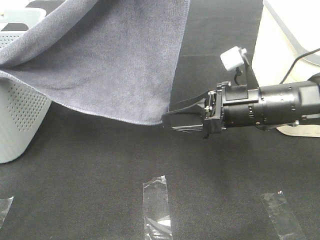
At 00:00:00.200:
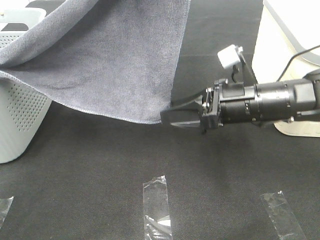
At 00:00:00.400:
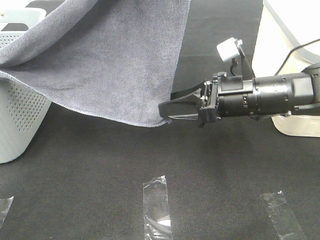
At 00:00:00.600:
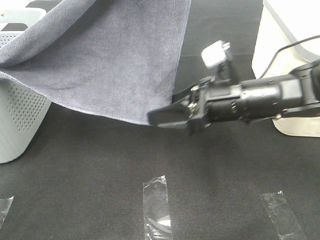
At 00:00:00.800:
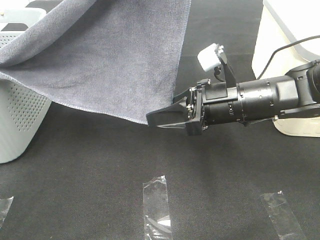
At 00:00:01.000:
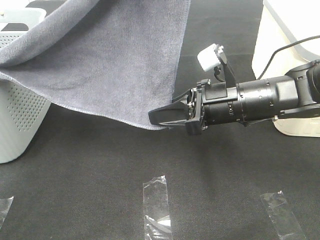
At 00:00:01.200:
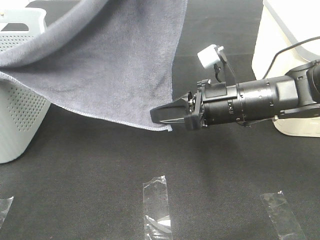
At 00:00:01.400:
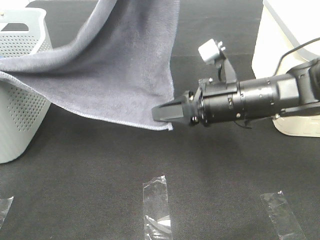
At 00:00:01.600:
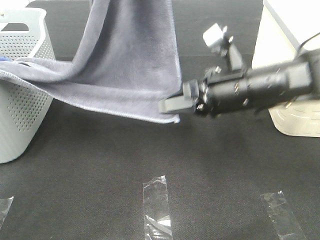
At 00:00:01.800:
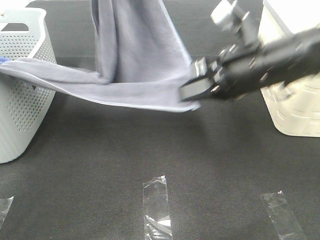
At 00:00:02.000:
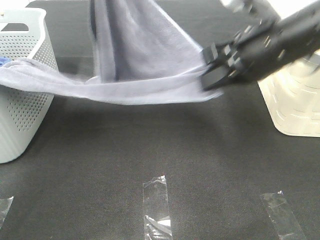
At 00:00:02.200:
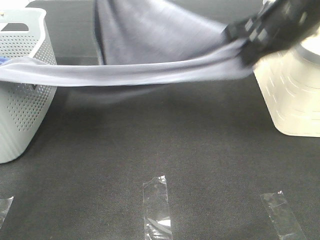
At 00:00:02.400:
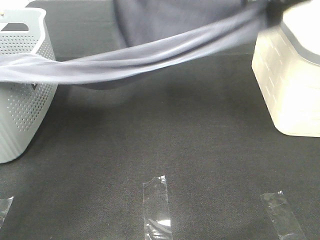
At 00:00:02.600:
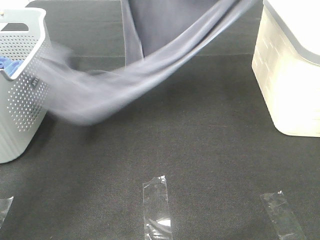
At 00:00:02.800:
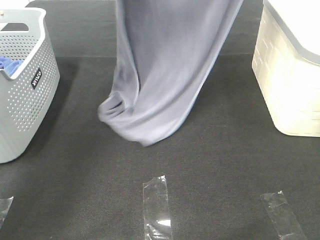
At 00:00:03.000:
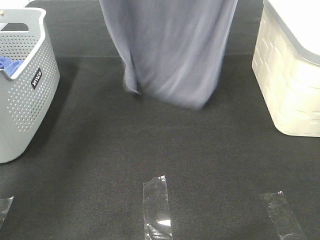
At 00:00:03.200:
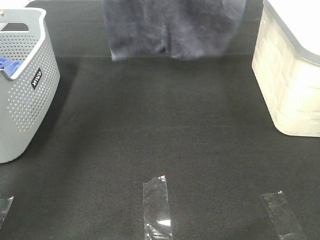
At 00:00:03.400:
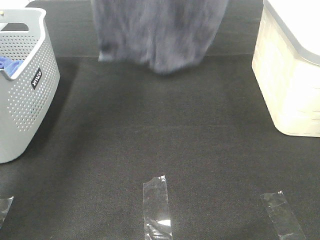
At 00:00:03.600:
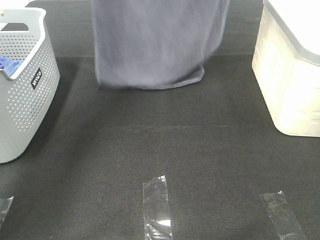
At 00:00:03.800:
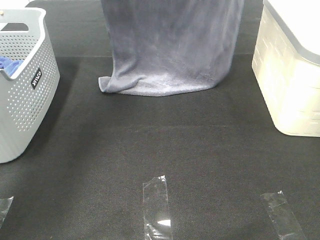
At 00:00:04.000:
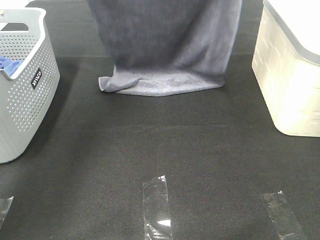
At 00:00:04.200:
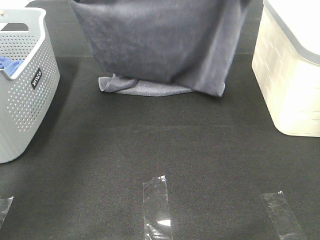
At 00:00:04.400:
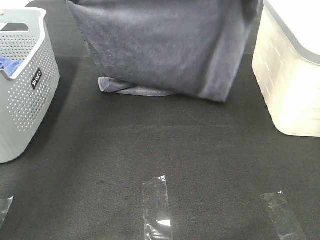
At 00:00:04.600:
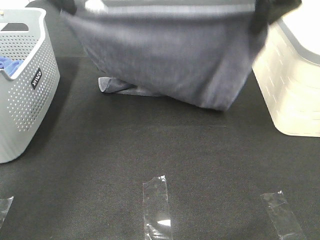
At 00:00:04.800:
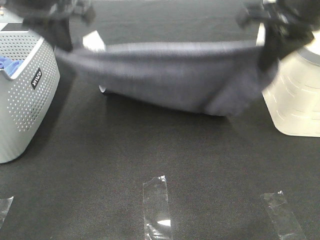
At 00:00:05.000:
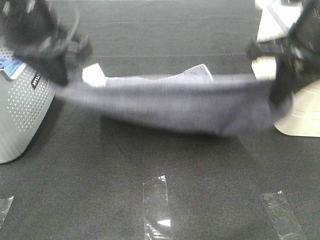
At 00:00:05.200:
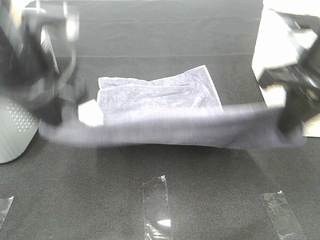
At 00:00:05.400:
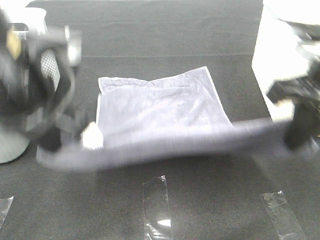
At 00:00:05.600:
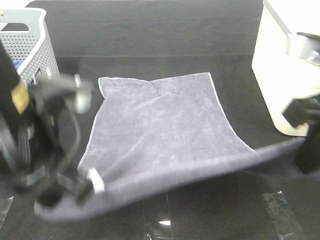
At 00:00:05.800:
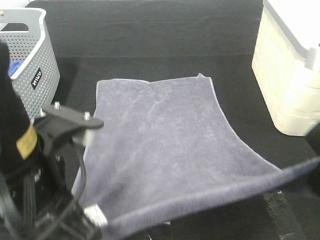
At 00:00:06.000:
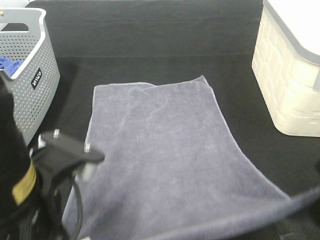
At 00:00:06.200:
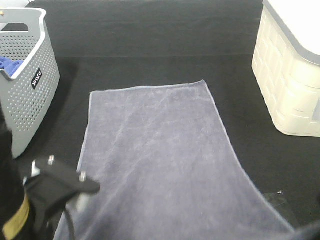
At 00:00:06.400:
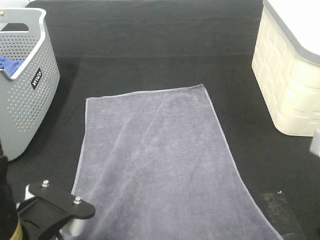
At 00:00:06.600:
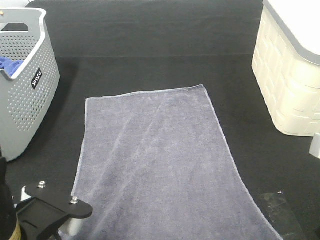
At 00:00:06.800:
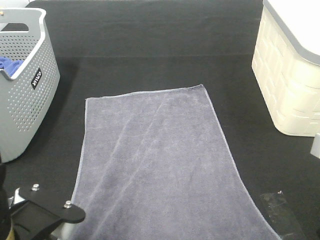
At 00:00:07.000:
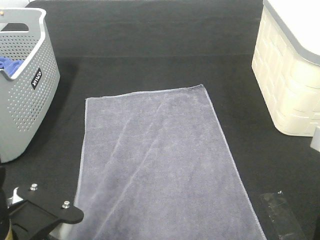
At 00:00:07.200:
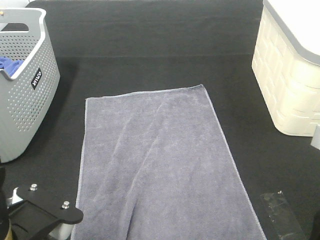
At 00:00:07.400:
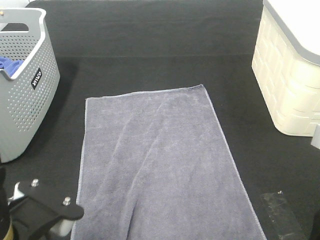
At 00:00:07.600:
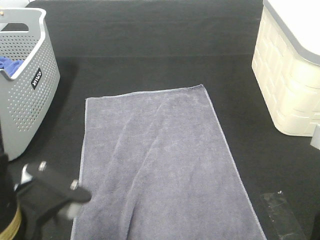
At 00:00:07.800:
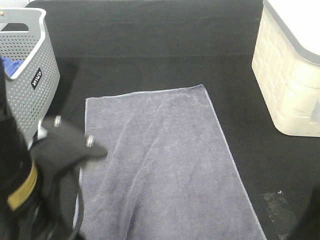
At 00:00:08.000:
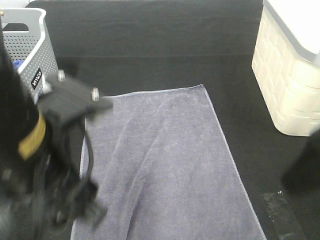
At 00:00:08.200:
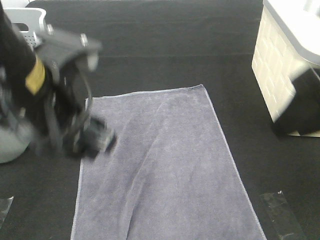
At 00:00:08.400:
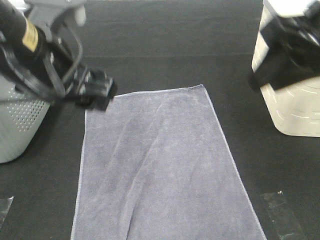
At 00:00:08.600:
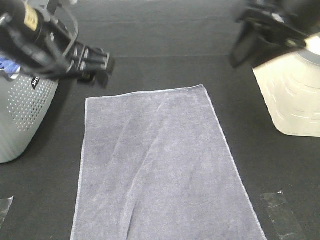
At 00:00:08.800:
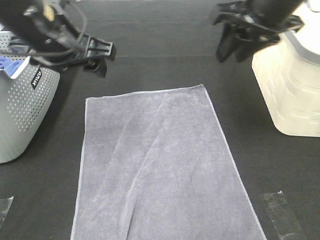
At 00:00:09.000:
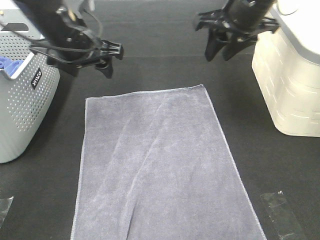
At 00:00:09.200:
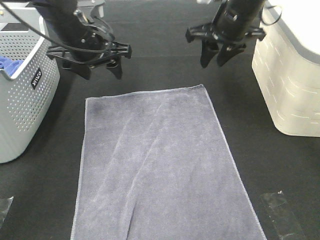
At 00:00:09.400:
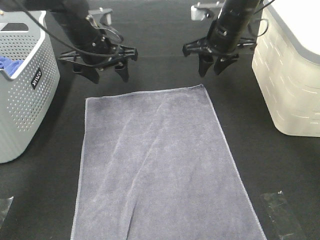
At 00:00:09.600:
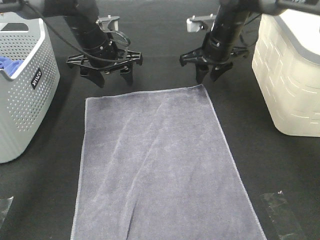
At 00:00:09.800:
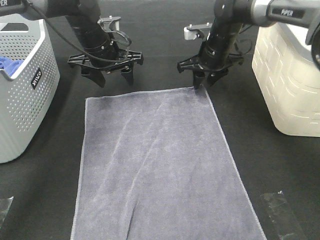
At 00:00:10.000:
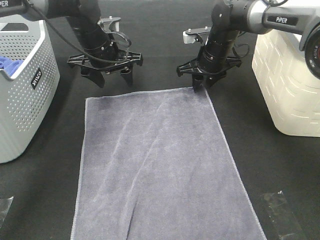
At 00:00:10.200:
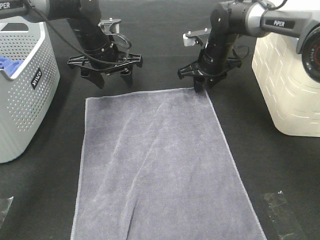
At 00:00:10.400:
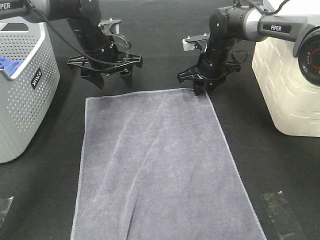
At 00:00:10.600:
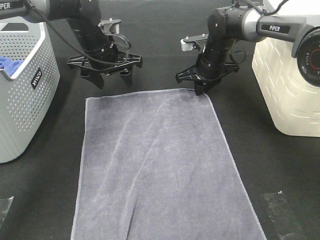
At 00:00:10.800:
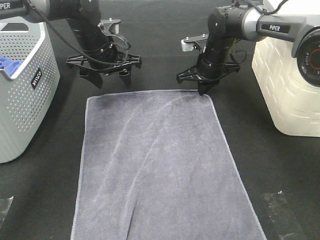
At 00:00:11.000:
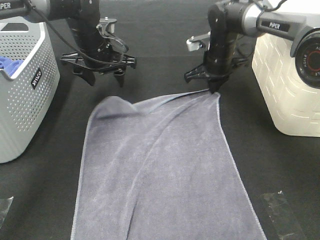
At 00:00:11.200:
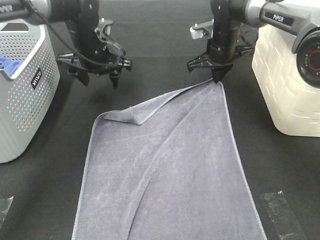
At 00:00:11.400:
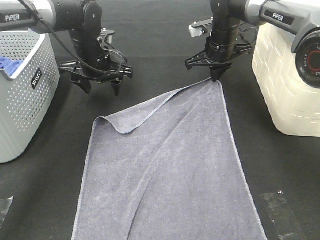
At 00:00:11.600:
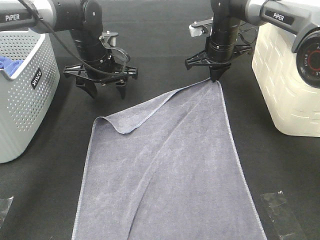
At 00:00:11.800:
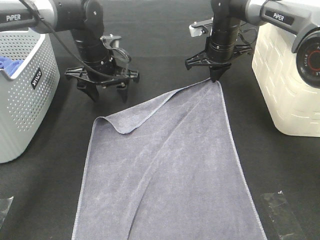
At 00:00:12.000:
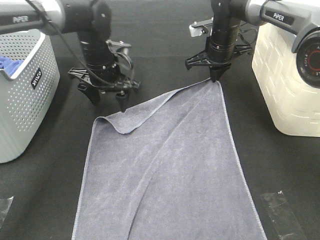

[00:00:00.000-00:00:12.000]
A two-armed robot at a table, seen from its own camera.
Task of the whole recording: Remove the towel and place it.
Step, 00:00:00.400 to 00:00:03.400: Left hand: spread the grey towel flat on the table.
Step, 00:00:00.400 to 00:00:03.400: Right hand: spread the grey towel flat on the table.
00:00:00.000 to 00:00:01.600: The right gripper closes, while the left gripper shifts by roughly 5 cm.
00:00:01.600 to 00:00:03.000: The left gripper is displaced forward and to the left by roughly 15 cm. The right gripper is displaced upward by roughly 35 cm.
00:00:03.000 to 00:00:04.400: Both grippers travel together downward, approximately 15 cm.
00:00:04.400 to 00:00:06.000: The two grippers go about 30 cm backward and downward.
00:00:06.000 to 00:00:07.600: The left gripper opens. The right gripper opens its fingers.
00:00:07.600 to 00:00:09.000: Both grippers travel together forward, about 30 cm.
00:00:09.000 to 00:00:10.400: The left gripper heads forward and downward, covering roughly 10 cm. The right gripper travels downward and forward by approximately 20 cm.
00:00:10.400 to 00:00:12.000: The right gripper closes up.

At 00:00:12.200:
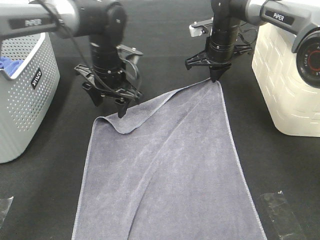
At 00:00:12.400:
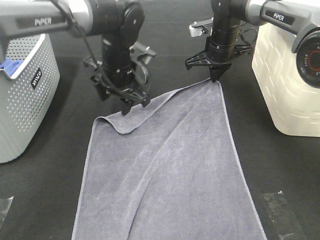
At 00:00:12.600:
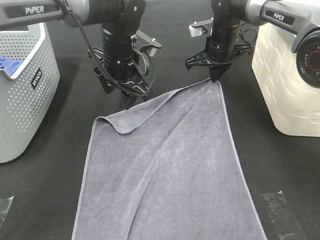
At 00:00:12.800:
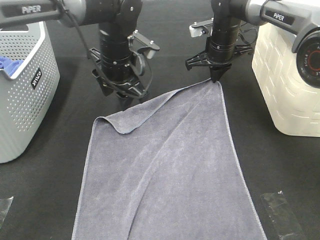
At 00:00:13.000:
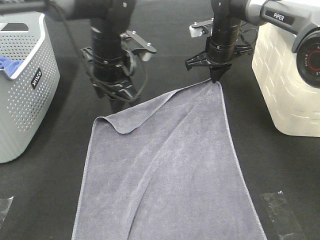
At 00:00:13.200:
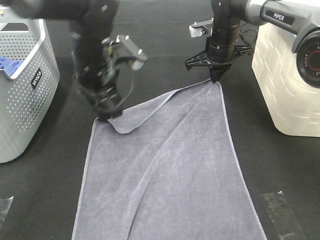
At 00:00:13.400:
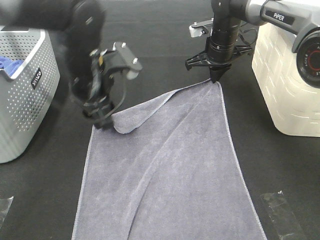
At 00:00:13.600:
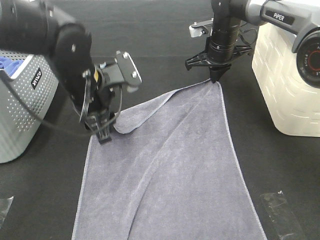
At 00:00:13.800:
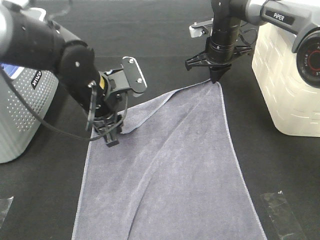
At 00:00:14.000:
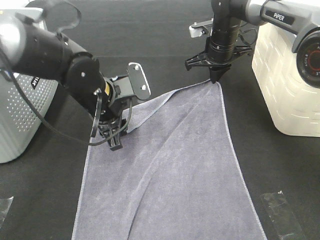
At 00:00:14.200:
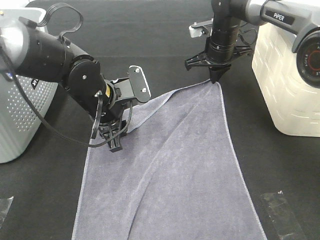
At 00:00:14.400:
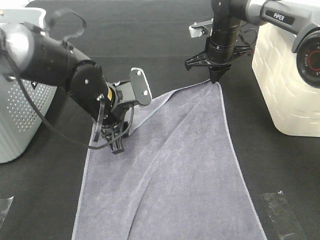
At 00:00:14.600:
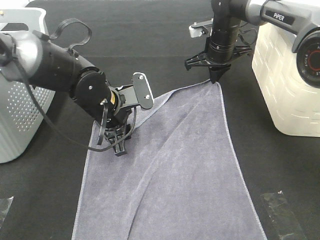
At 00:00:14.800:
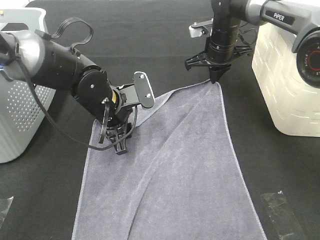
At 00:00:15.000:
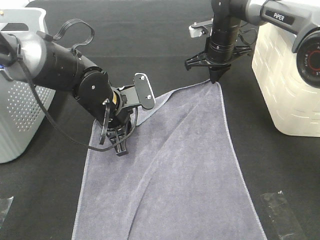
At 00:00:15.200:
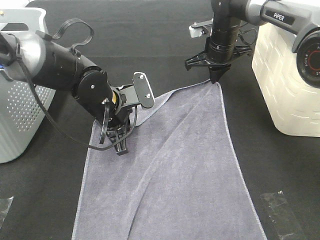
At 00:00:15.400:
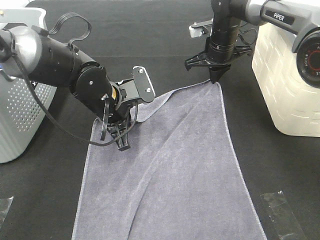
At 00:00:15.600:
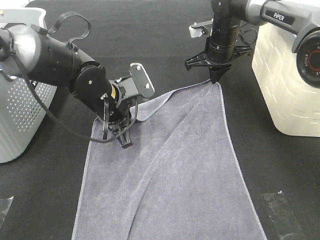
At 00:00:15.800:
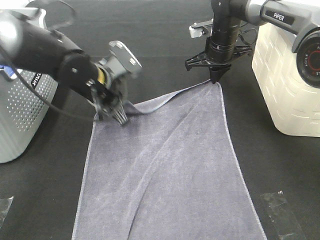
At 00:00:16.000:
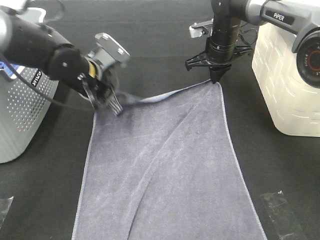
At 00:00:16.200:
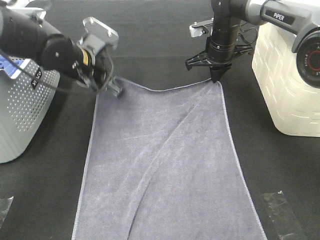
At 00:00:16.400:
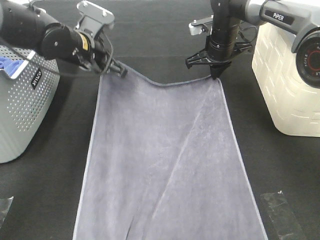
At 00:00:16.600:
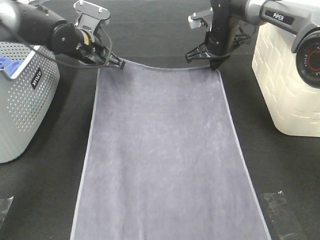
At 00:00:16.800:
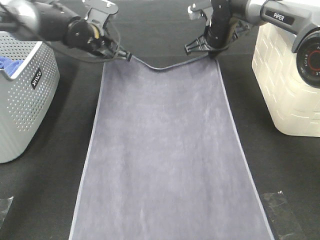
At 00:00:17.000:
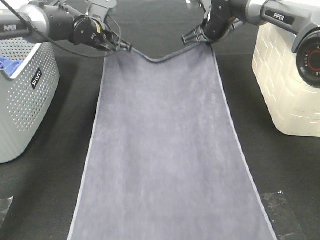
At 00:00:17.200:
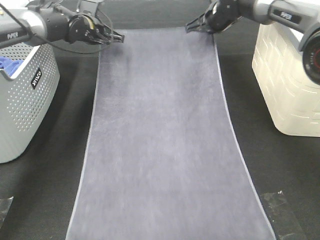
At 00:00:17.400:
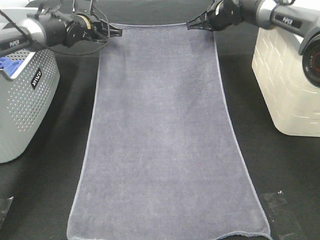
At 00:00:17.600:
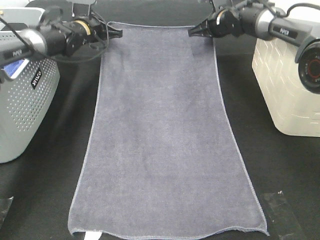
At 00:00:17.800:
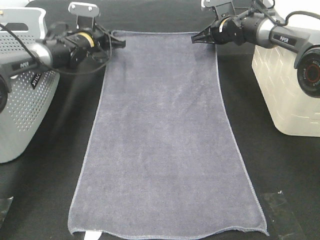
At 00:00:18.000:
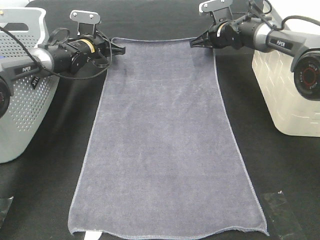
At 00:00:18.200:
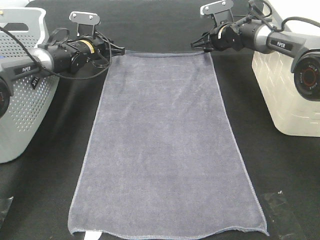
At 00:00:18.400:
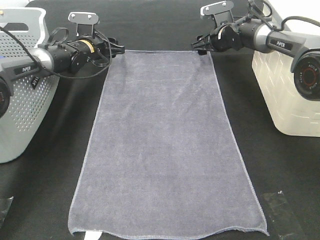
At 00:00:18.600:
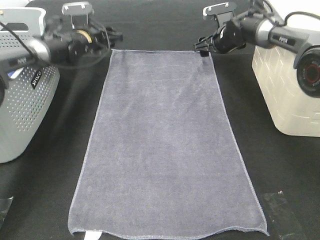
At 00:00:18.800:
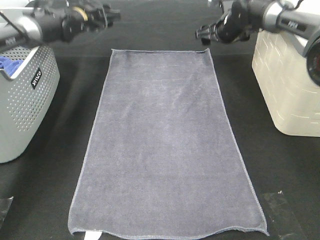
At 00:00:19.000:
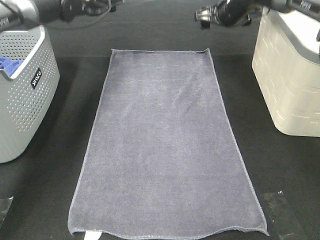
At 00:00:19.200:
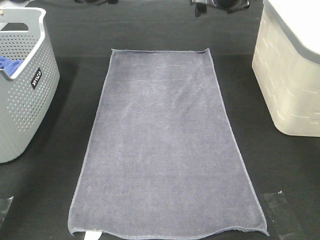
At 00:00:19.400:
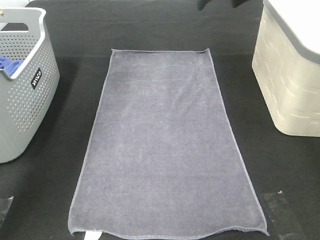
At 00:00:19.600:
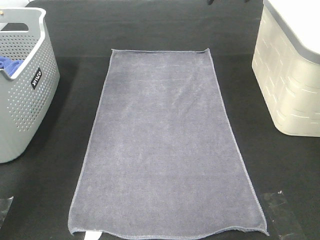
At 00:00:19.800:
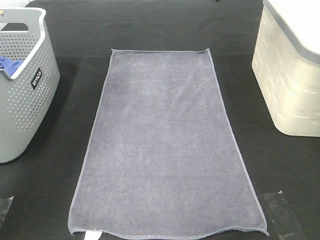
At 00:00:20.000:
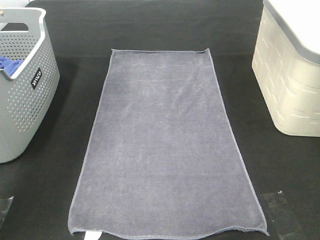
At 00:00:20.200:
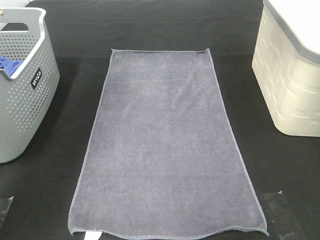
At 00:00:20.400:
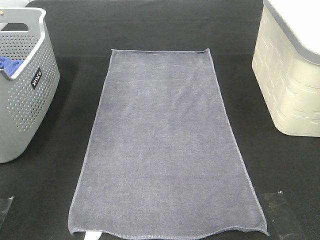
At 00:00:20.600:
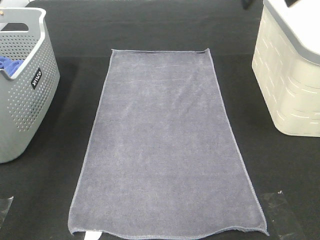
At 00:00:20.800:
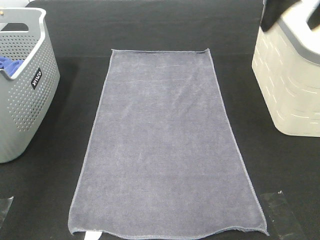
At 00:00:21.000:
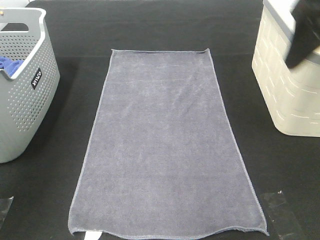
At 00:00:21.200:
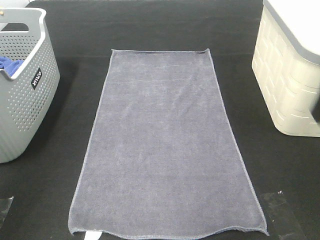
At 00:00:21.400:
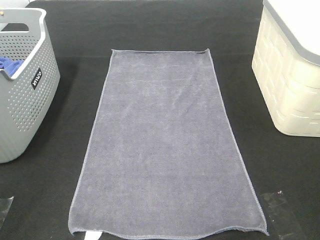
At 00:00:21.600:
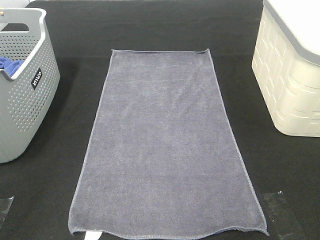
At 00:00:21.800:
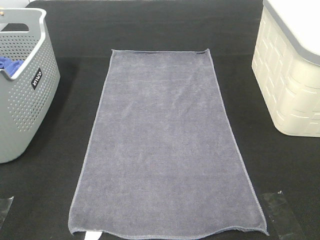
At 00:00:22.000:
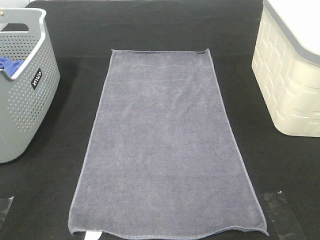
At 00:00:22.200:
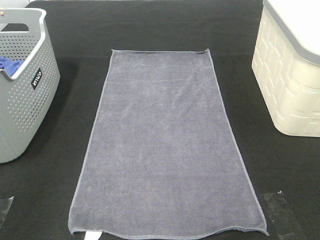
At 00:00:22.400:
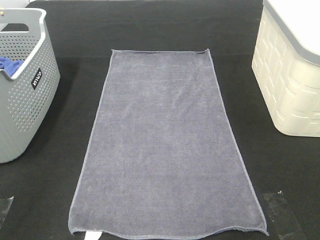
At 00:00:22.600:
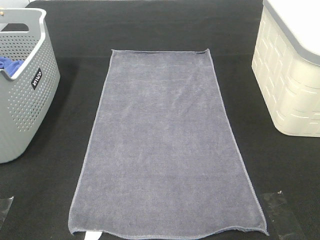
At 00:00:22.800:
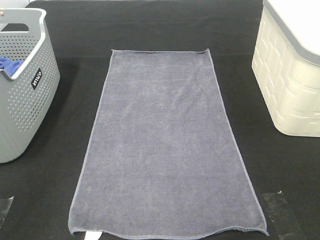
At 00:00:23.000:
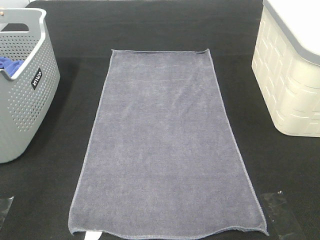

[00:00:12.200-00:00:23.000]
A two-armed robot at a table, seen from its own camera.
Task of the whole recording: Remove the towel and place it.
00:00:12.200 to 00:00:13.800: The left gripper is displaced backward by approximately 10 cm.
00:00:13.800 to 00:00:15.200: The left gripper closes.
00:00:15.200 to 00:00:16.800: The left gripper heads forward, covering about 15 cm.
00:00:16.800 to 00:00:18.400: The left gripper heads forward and downward, covering approximately 10 cm, and opens. The right gripper heads downward, covering approximately 5 cm, and opens its fingers.
00:00:18.400 to 00:00:20.000: Both grippers move upward and backward, about 30 cm.
00:00:20.000 to 00:00:21.400: The grippers both shift backward by roughly 35 cm.
